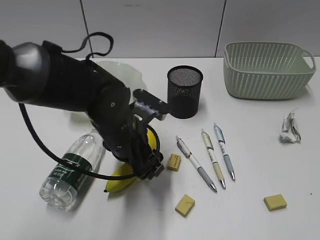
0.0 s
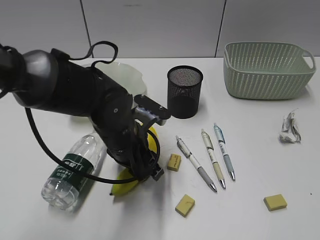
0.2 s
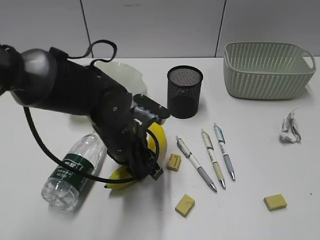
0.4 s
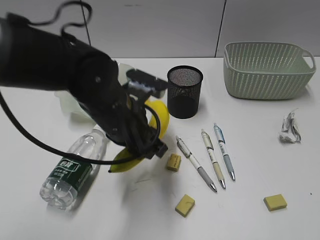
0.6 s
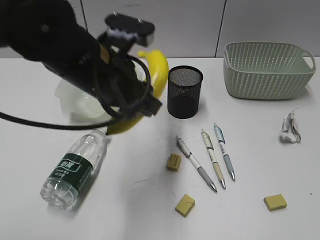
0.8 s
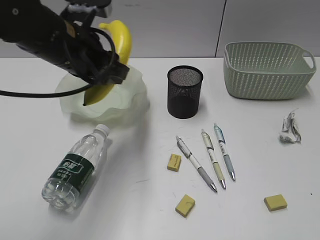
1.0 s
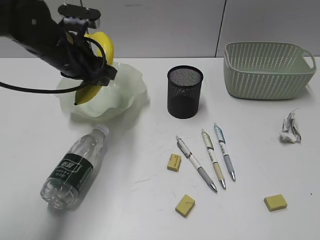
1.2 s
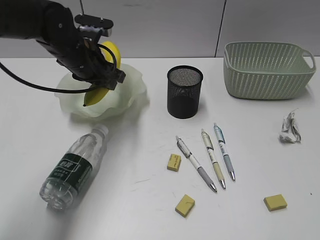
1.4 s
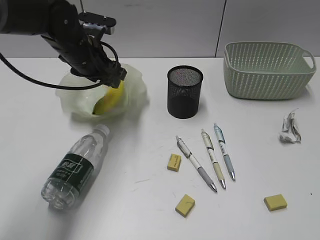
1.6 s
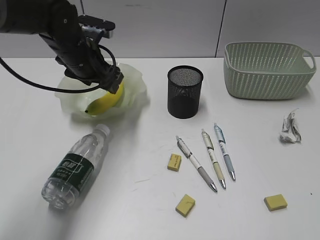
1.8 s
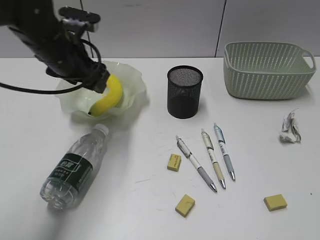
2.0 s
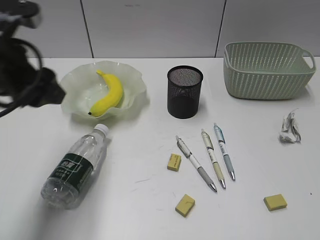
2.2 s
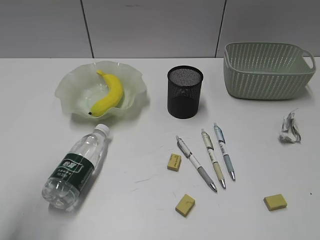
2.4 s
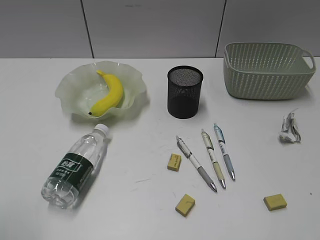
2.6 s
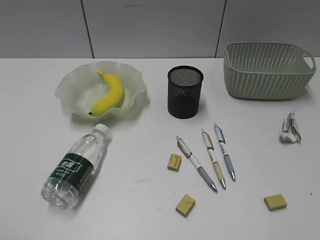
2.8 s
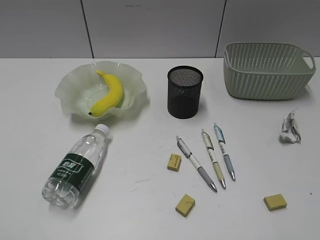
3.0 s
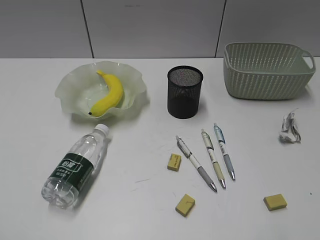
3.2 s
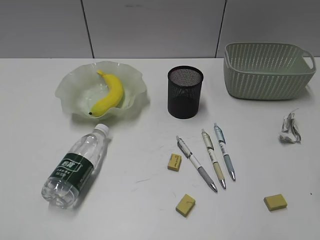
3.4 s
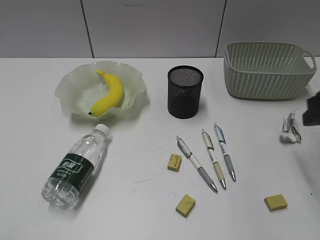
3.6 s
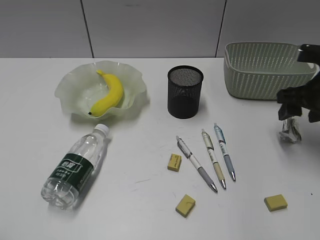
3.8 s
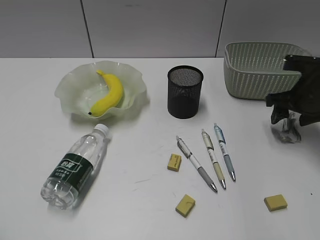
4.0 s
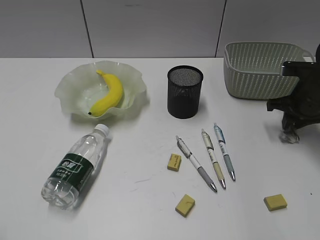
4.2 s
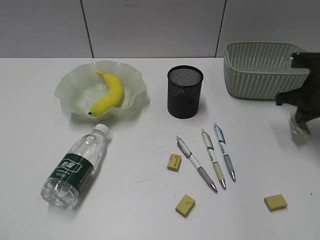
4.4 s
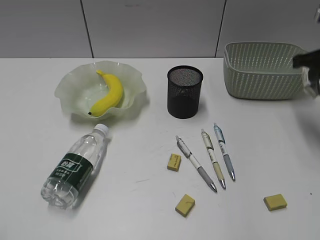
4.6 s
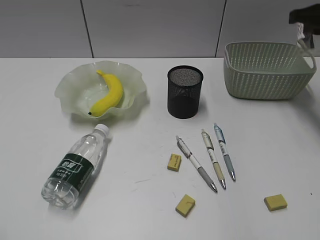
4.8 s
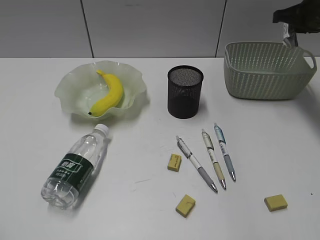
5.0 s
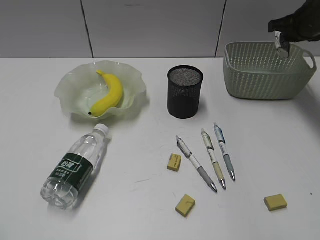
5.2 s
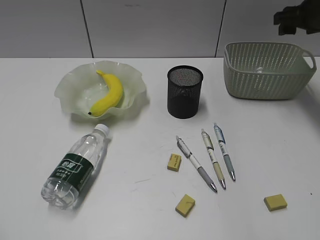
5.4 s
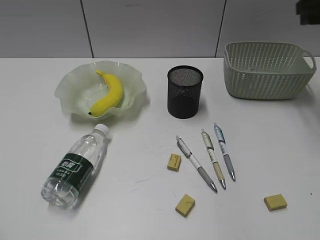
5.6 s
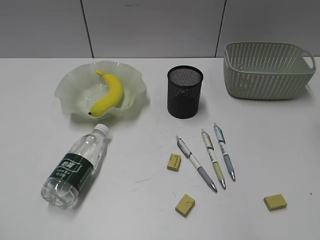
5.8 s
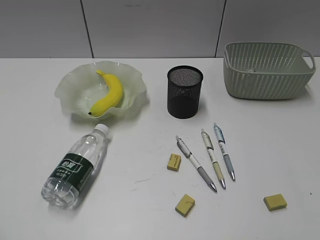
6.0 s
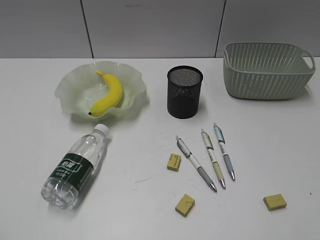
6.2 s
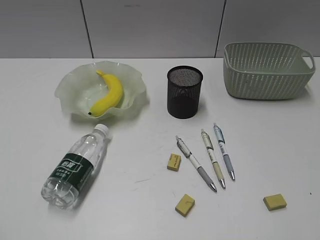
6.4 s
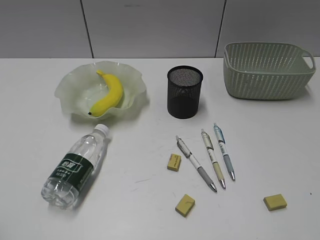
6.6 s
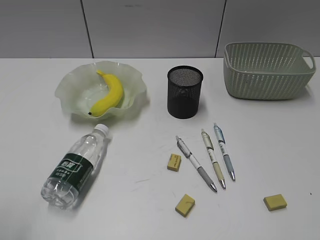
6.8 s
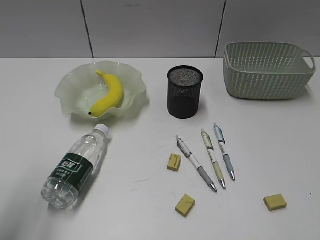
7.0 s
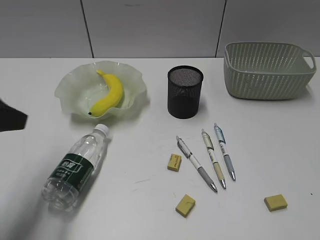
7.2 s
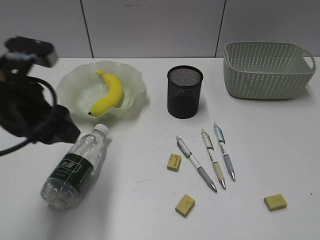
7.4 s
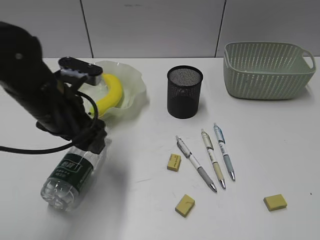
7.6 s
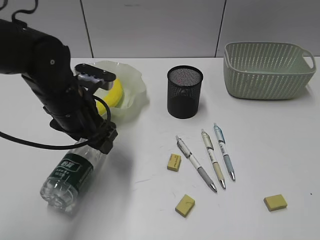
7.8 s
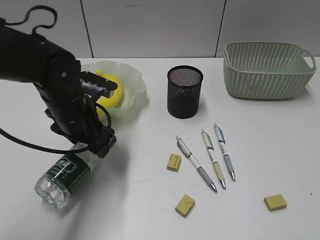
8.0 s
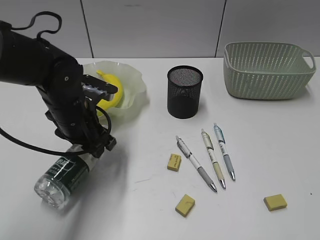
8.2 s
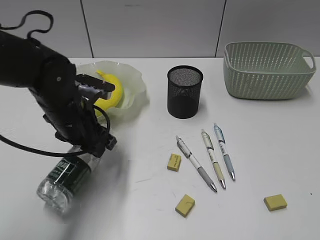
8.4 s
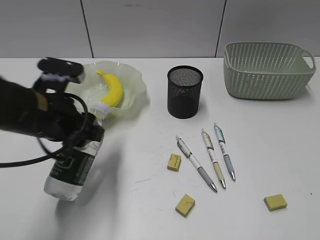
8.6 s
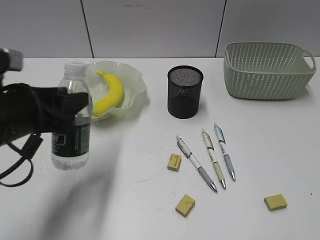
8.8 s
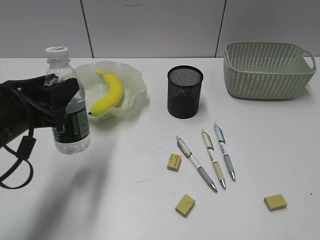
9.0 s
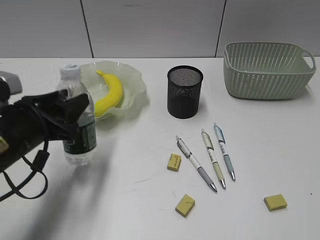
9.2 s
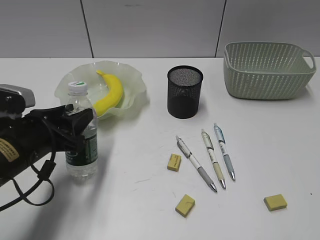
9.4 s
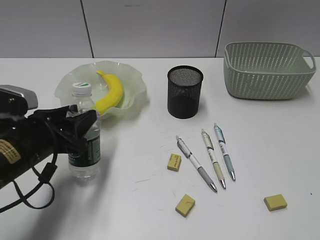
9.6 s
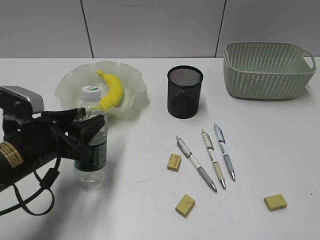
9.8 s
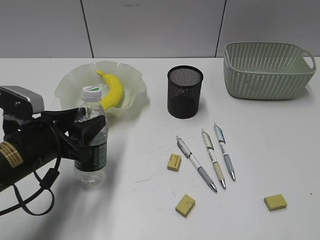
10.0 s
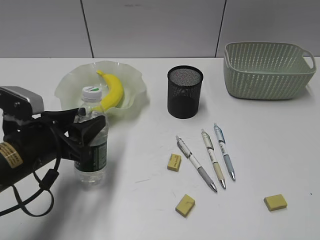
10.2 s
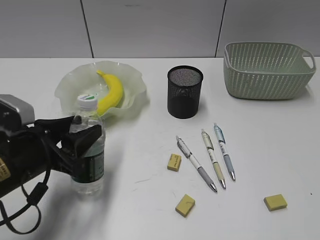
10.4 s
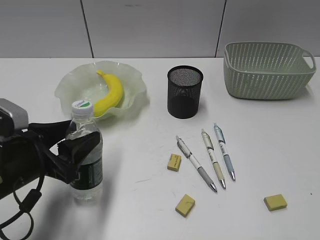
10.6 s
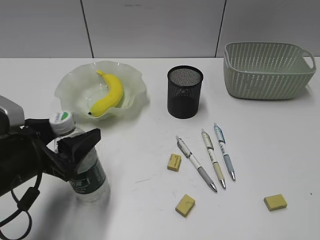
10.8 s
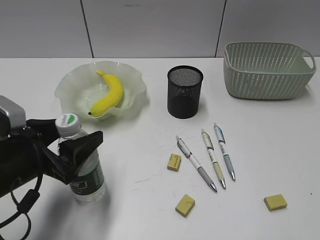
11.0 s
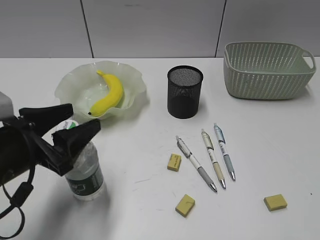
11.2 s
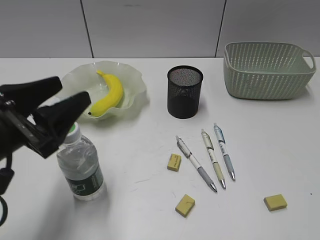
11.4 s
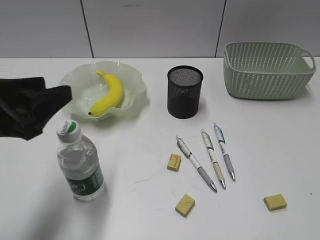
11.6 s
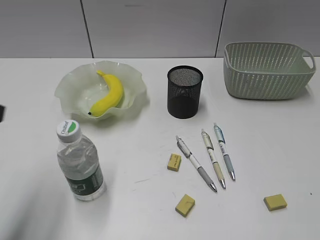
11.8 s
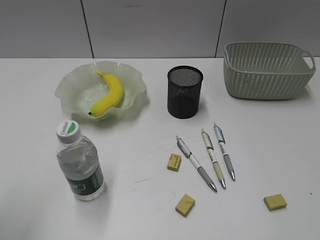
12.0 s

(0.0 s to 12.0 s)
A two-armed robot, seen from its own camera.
Step, 0.4 s - 1.8 s: Place the banana in the plate with left gripper.
Step, 2.0 s - 4.2 s: Grasp the waste paper with right gripper.
Step, 4.4 s - 5.4 s: Place the waste paper in the basket with right gripper.
Step, 5.6 s - 8.2 s: Grasp the bottle with left gripper.
Step, 8.4 s - 11.2 s: Stand the bottle with left gripper.
0.0 s - 1.6 s: The left gripper travels forward, to the left and upward by some 15 cm.
1.6 s - 3.0 s: The left gripper heads backward and to the left, covering about 40 cm.
3.0 s - 4.4 s: The right gripper is displaced forward by some 35 cm, and closes up.
4.4 s - 6.0 s: The right gripper travels backward and upward by some 25 cm, and opens up.
6.0 s - 7.6 s: The right gripper travels backward by some 15 cm. The left gripper is displaced forward and to the right by about 30 cm, and opens its fingers.
7.6 s - 9.0 s: The left gripper heads backward and to the left, covering approximately 10 cm, and closes.
9.0 s - 10.4 s: The left gripper heads downward, covering some 5 cm.
10.4 s - 12.0 s: The left gripper moves upward, backward and to the left, about 20 cm, and opens, then closes once more.

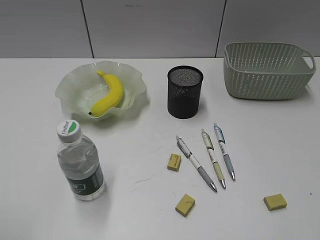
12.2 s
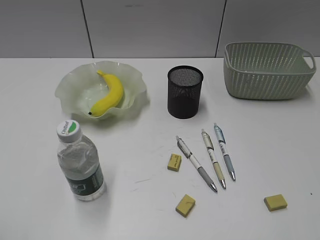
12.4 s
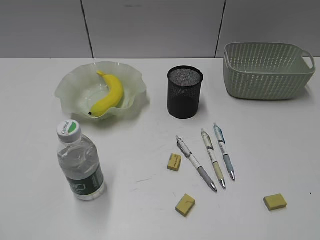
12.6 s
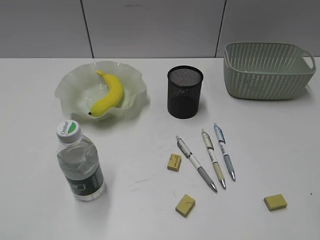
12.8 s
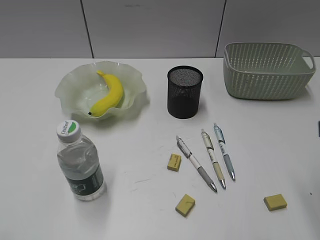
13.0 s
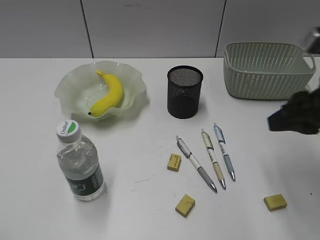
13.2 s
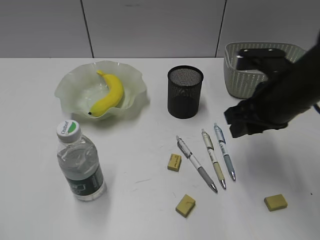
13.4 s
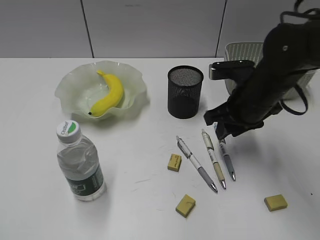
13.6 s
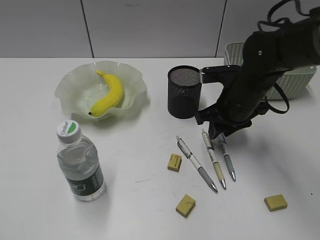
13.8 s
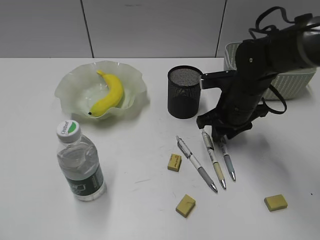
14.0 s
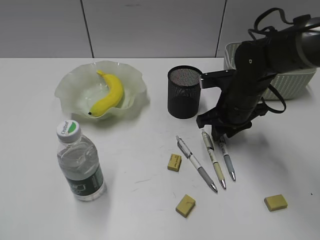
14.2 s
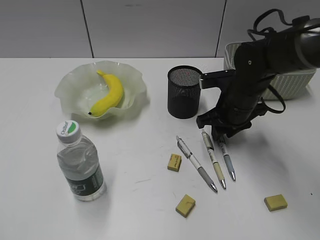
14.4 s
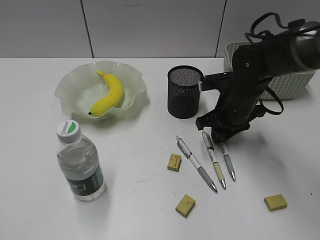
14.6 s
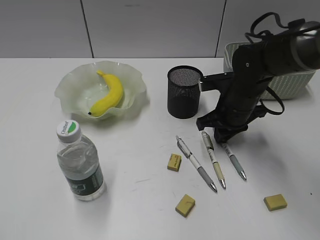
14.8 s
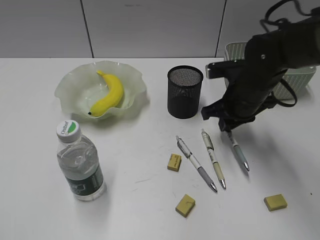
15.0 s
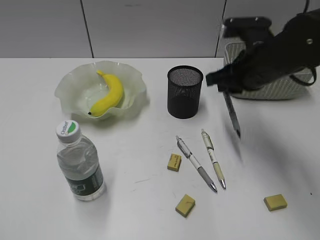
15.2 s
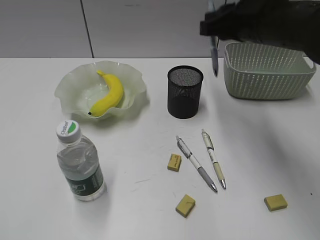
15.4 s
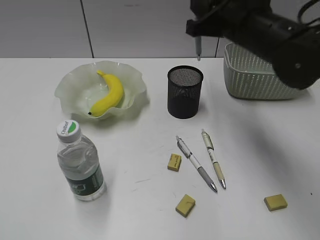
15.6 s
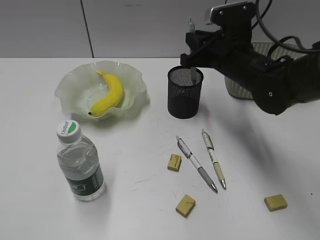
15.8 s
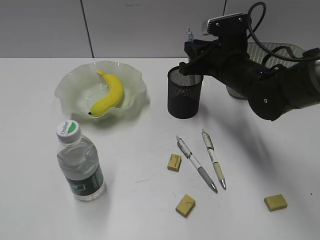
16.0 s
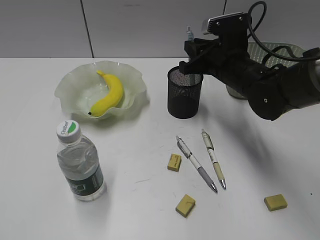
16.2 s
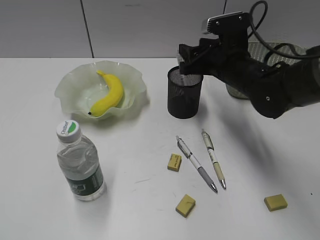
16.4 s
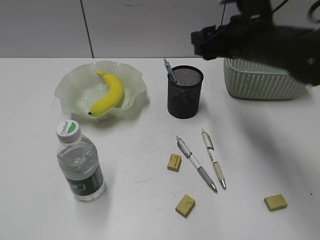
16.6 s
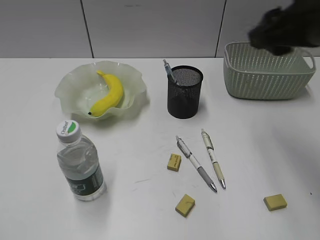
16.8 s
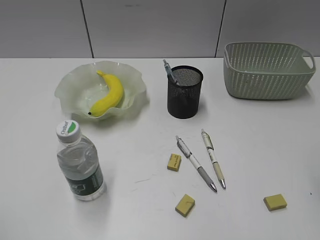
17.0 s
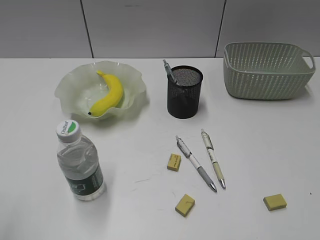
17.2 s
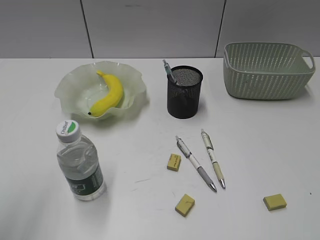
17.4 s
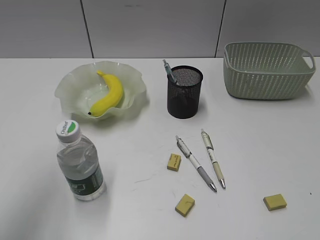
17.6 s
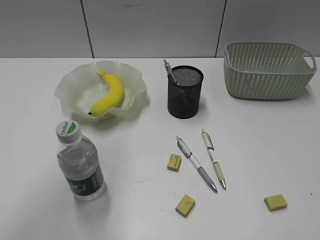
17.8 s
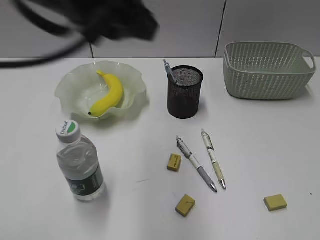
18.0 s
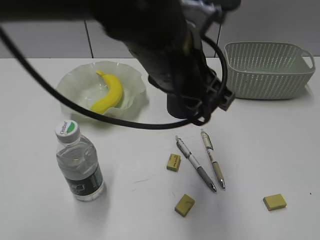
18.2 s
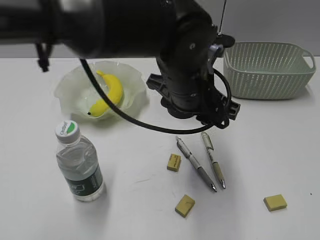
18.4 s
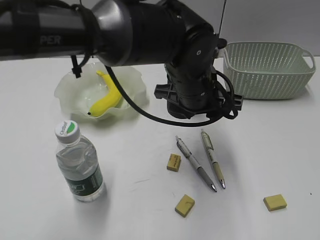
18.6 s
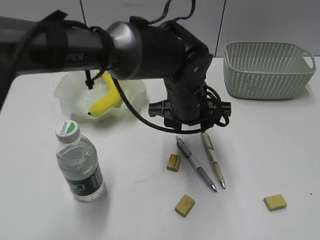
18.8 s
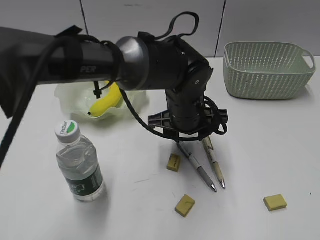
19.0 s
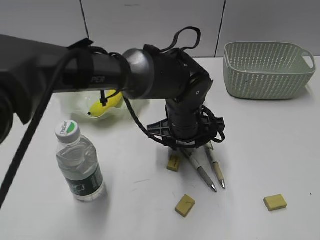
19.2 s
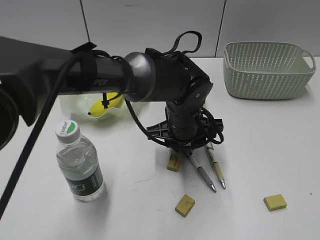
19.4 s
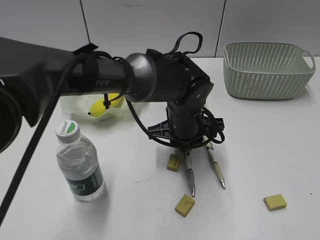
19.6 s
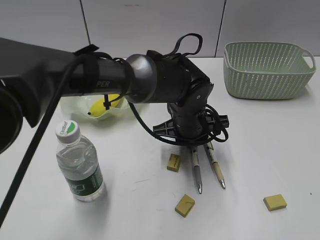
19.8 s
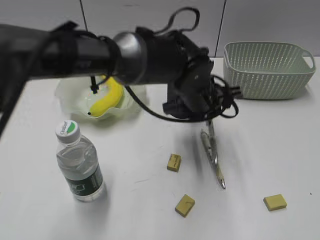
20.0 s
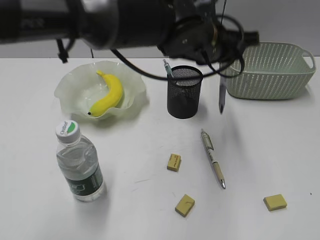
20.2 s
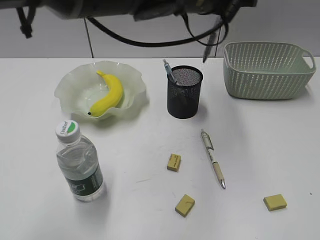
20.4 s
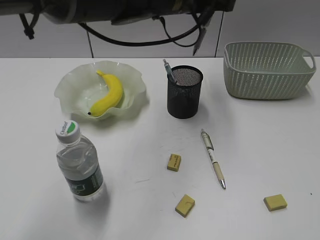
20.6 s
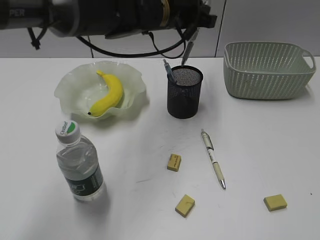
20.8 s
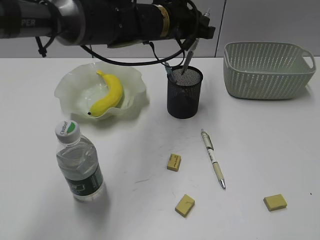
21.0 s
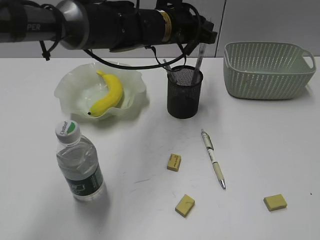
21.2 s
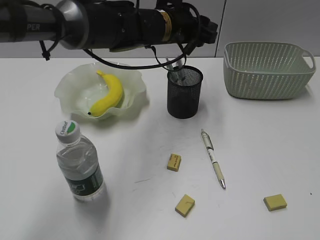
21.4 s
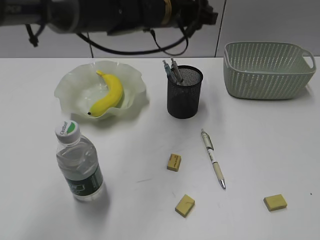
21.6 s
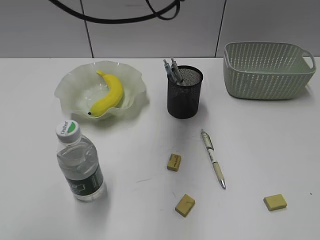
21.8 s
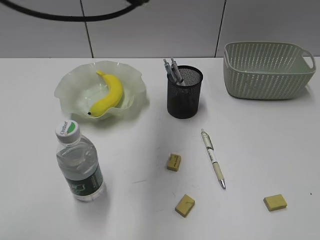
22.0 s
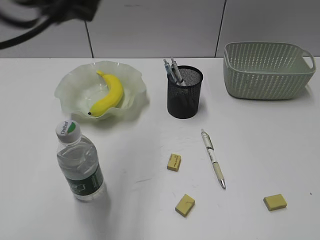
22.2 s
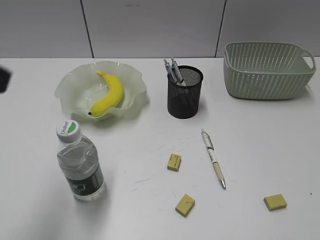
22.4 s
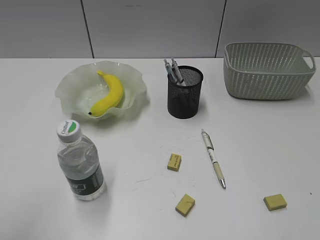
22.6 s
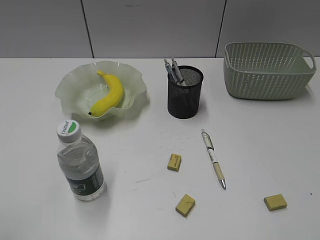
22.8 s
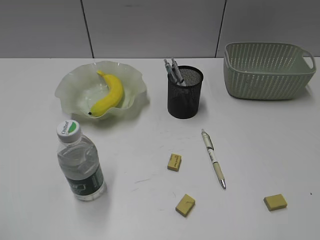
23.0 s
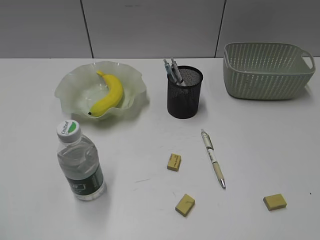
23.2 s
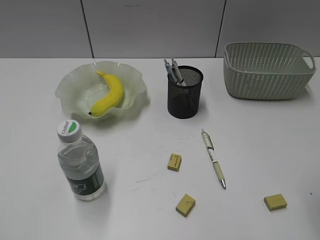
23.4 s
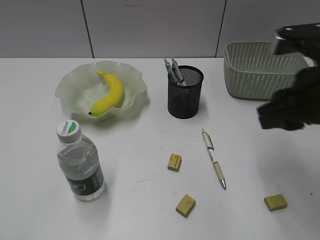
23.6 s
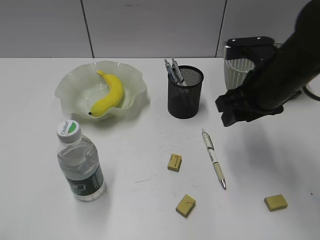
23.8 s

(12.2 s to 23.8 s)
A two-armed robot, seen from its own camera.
Step, 12.2 s - 14.6 s: Grasp the blue pen with right gripper.
Step, 14.8 s - 16.4 s: Place the blue pen in pen holder with right gripper.
Step, 16.6 s - 19.6 s: Grasp the gray pen with left gripper.
Step, 19.8 s - 21.4 s: Place the gray pen in pen holder with left gripper.
12.2 s - 13.6 s: The right gripper is displaced forward and to the left by about 35 cm.
13.6 s - 15.0 s: The right gripper closes up.
15.0 s - 16.6 s: The right gripper moves up and down over approximately 15 cm, changing direction 2 times, and opens.
16.6 s - 18.0 s: The right gripper heads backward and to the right, covering approximately 40 cm, and closes its fingers. The left gripper travels to the right and forward by roughly 30 cm.
18.0 s - 19.4 s: The left gripper heads downward and to the right, covering roughly 30 cm.
19.4 s - 21.0 s: The left gripper moves upward and forward, some 15 cm, and closes up.
21.0 s - 22.4 s: The left gripper moves backward, to the left and upward, approximately 40 cm, and opens.
22.4 s - 23.8 s: The left gripper heads backward, to the left and downward, covering some 20 cm; the right gripper shifts about 35 cm forward and to the left, and opens up.
